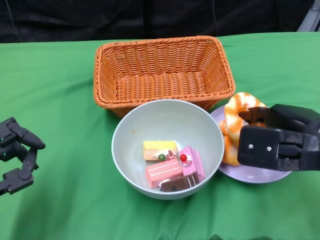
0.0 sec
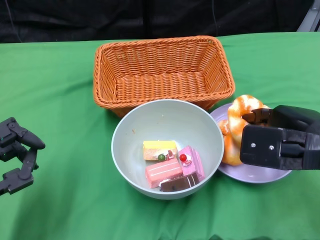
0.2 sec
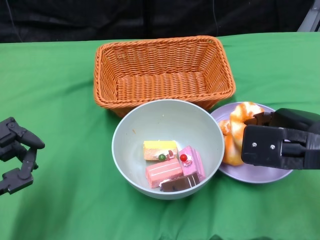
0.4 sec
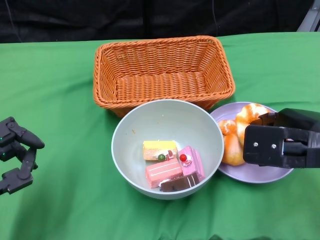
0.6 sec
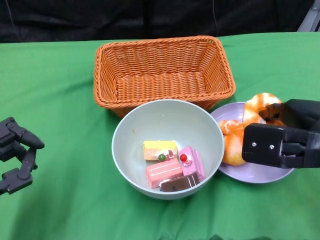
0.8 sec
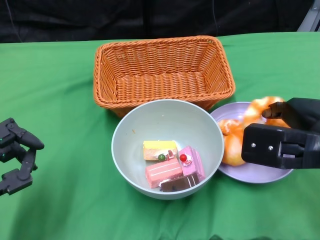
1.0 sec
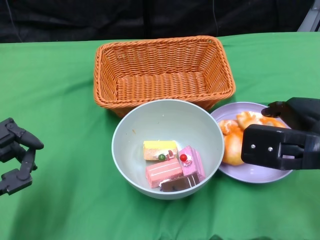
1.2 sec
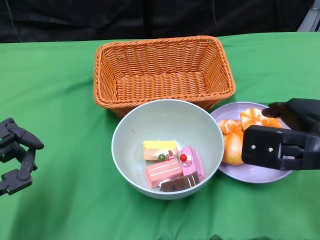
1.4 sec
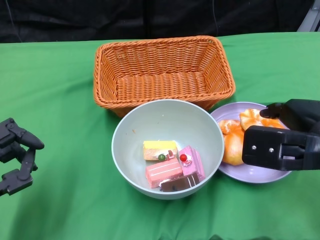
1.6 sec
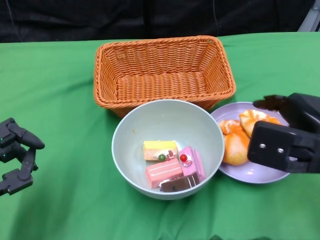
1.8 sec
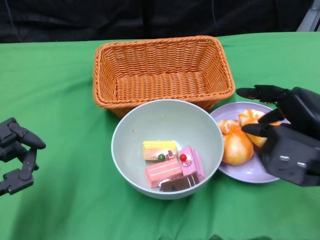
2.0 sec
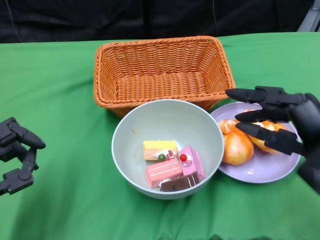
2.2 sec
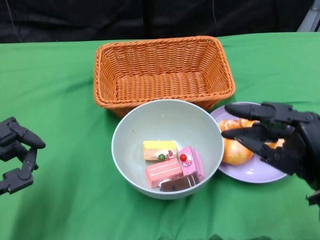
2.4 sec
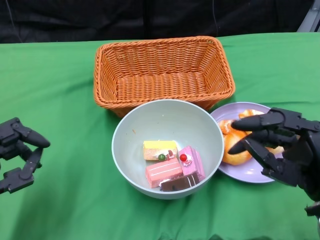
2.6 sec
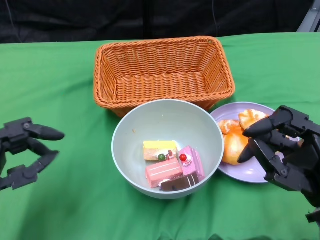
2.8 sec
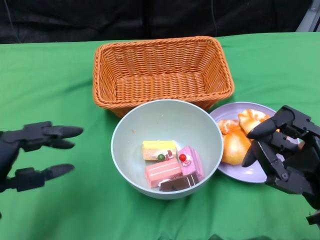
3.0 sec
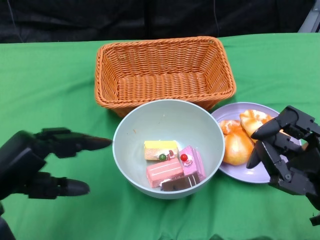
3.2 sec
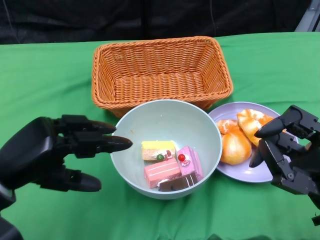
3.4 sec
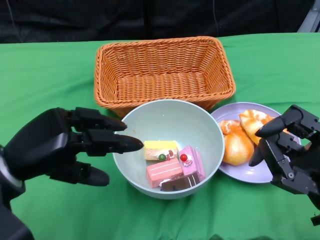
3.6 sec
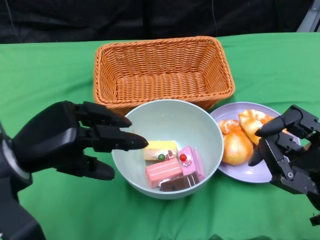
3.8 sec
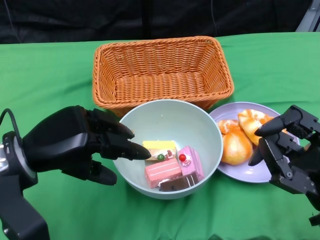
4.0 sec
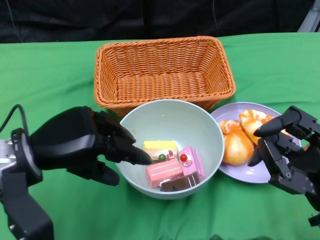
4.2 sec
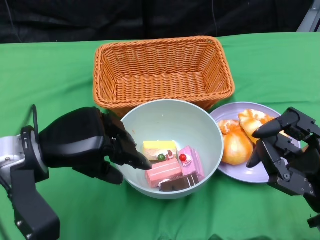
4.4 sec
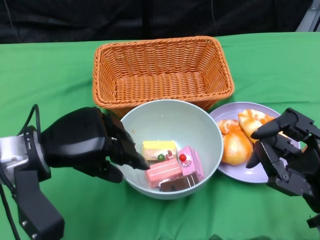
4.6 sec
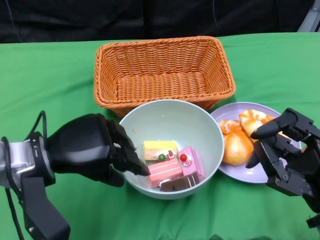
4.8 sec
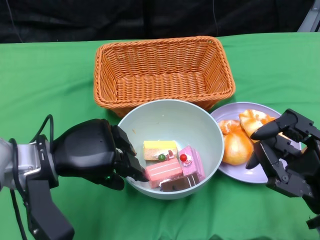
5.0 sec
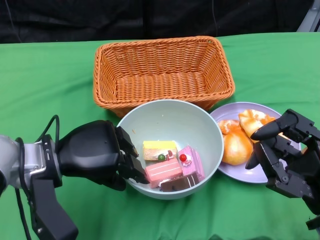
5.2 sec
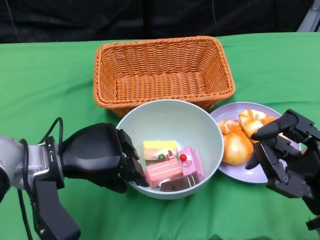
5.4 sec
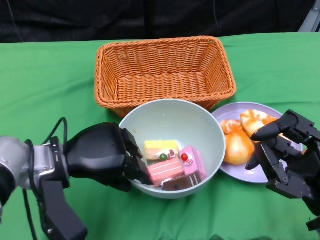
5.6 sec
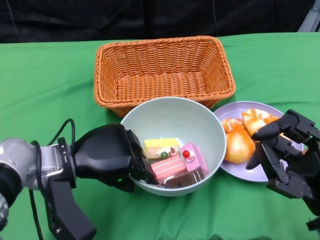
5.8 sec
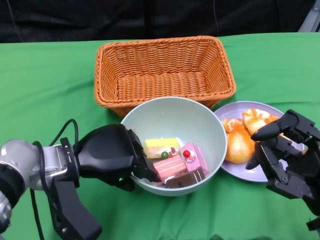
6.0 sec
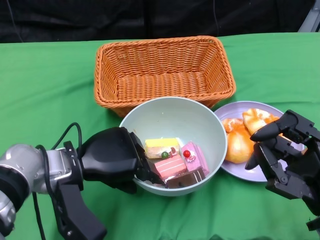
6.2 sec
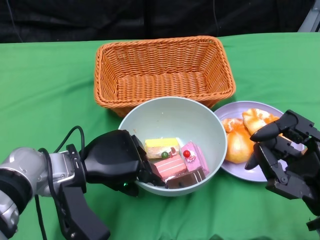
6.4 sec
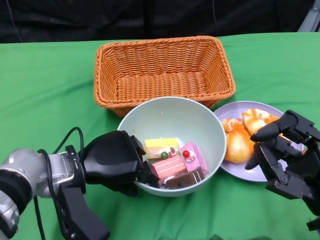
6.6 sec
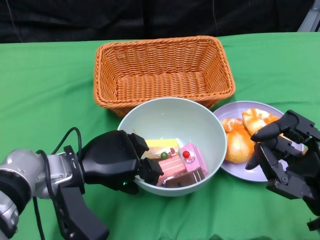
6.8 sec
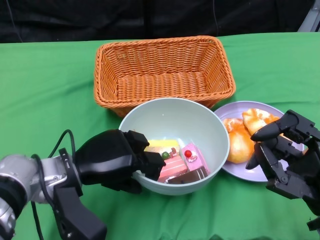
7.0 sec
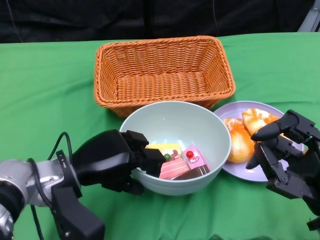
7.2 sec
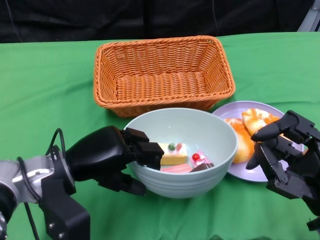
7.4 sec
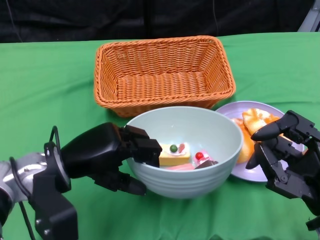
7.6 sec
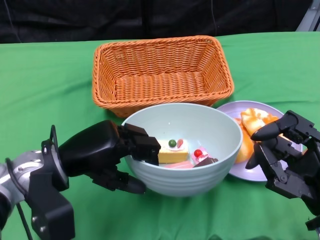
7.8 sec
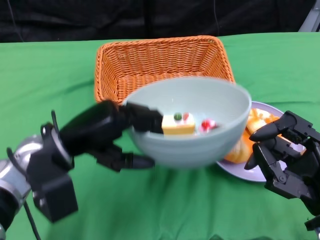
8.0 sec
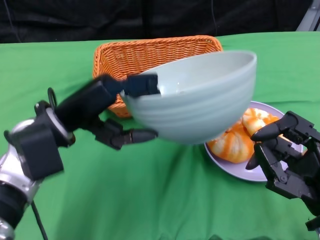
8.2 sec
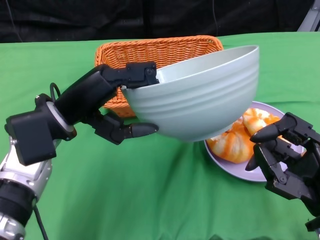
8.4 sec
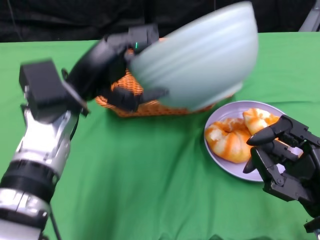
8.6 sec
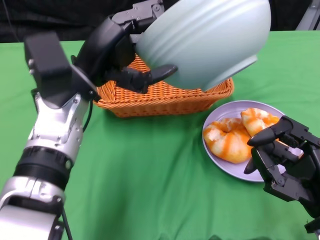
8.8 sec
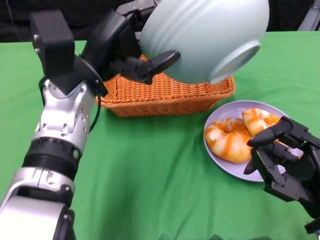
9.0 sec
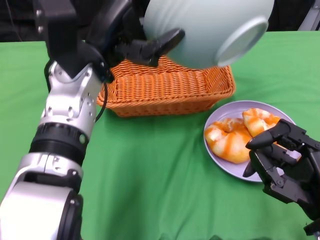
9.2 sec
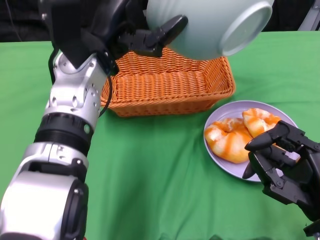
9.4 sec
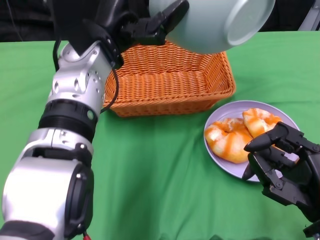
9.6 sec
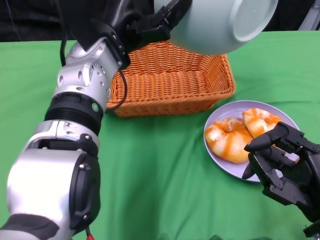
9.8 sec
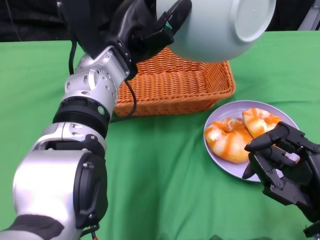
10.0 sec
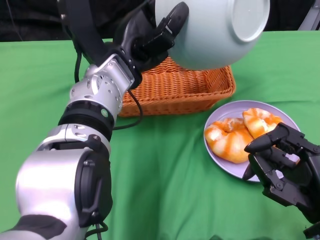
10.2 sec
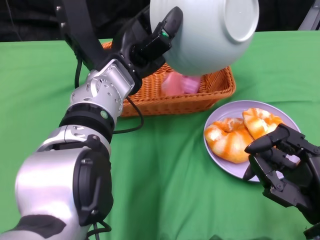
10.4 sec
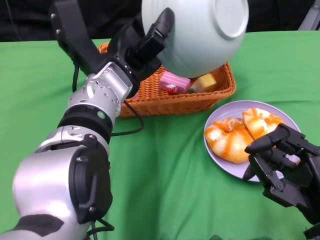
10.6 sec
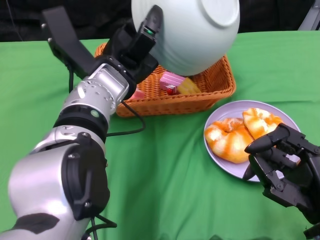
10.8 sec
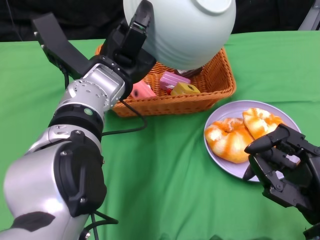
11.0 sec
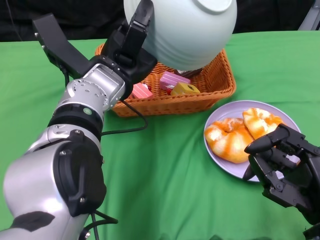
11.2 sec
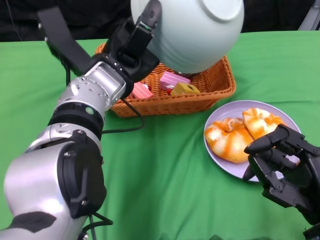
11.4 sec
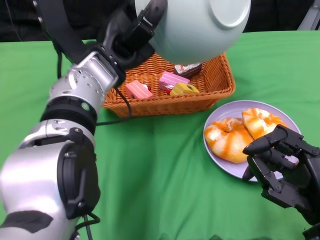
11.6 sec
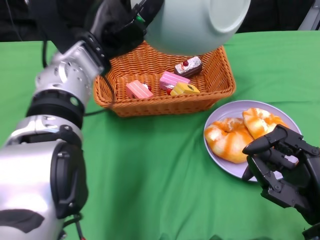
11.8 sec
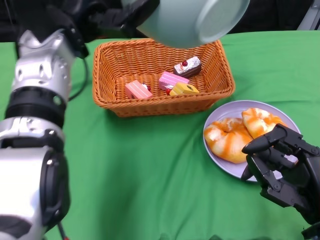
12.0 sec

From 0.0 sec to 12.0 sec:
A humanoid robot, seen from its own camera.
Step, from 2.0 sec to 7.2 sec: Grasp the bowl with the left gripper.
Step, from 7.4 sec to 11.8 sec: Pour the cake into the basket with the left gripper.
From 0.0 sec to 1.6 sec: The hands stay close to where they were, moving slightly.
From 1.6 sec to 3.0 sec: The right hand shifts about 10 cm backward.
From 3.0 sec to 4.4 sec: The left hand shifts some 10 cm to the right and forward.
From 4.4 sec to 6.0 sec: The left hand shifts by some 5 cm.
From 7.6 sec to 9.0 sec: The left hand shifts roughly 10 cm upward and forward.
From 9.0 sec to 10.4 sec: The left hand is displaced to the right by approximately 5 cm.
From 10.4 sec to 12.0 sec: The left hand travels to the left and upward by approximately 10 cm.

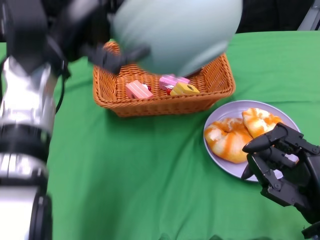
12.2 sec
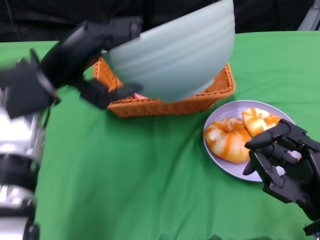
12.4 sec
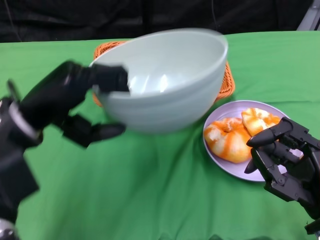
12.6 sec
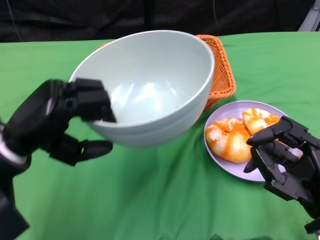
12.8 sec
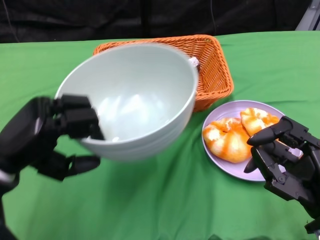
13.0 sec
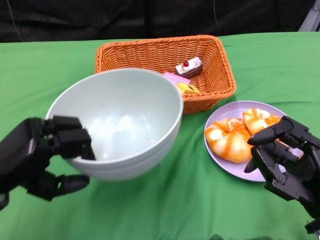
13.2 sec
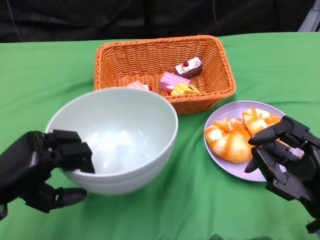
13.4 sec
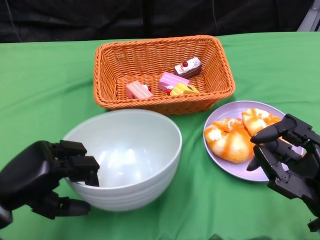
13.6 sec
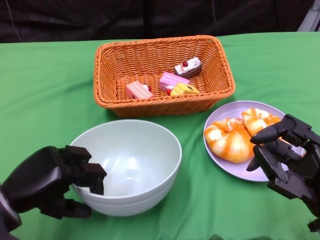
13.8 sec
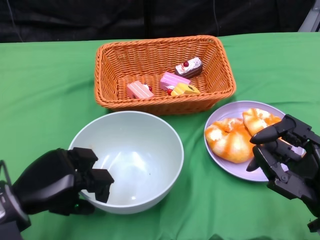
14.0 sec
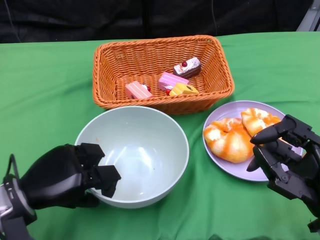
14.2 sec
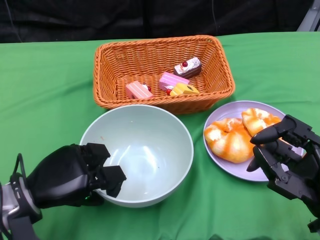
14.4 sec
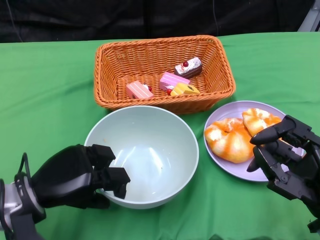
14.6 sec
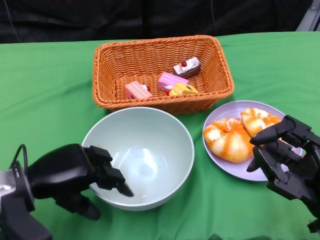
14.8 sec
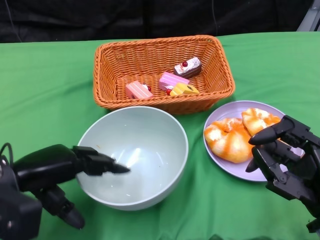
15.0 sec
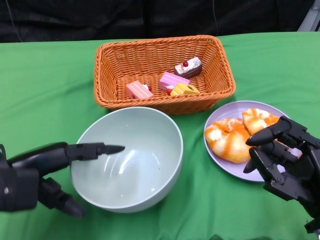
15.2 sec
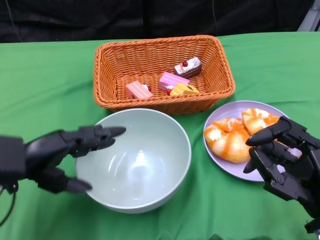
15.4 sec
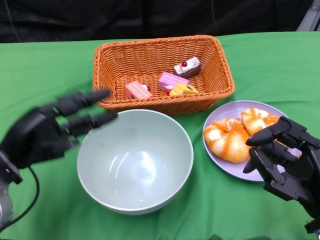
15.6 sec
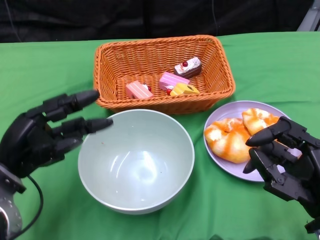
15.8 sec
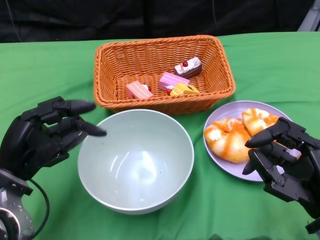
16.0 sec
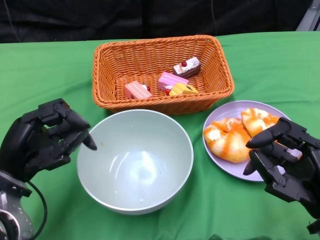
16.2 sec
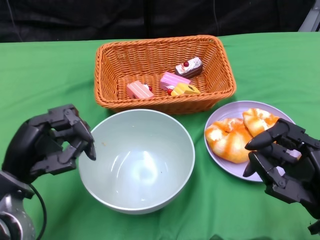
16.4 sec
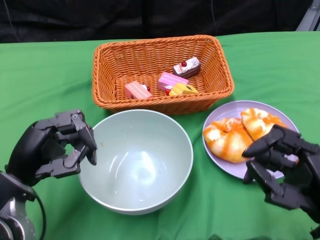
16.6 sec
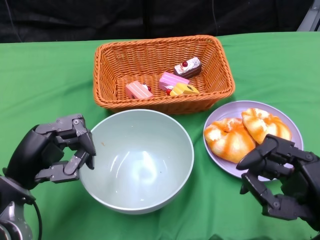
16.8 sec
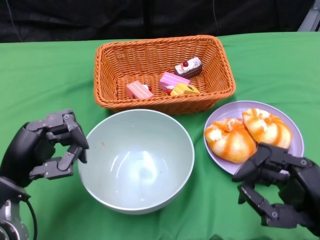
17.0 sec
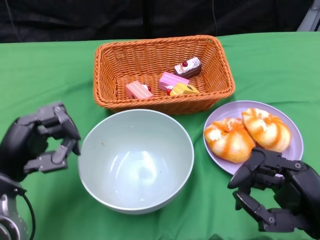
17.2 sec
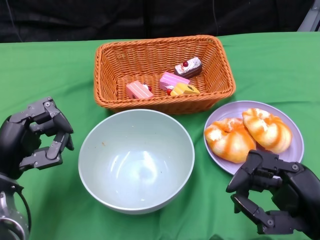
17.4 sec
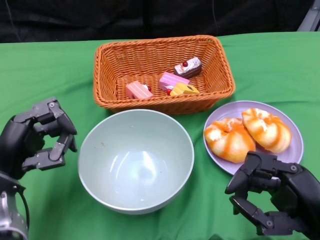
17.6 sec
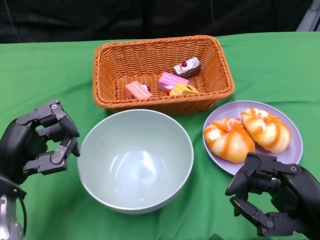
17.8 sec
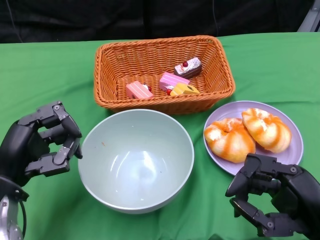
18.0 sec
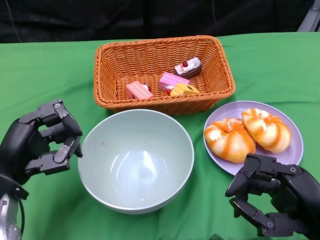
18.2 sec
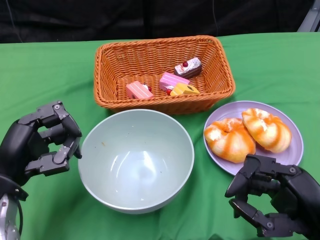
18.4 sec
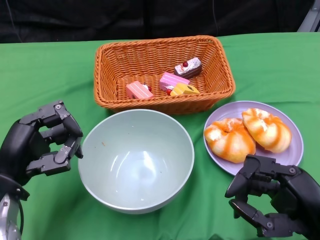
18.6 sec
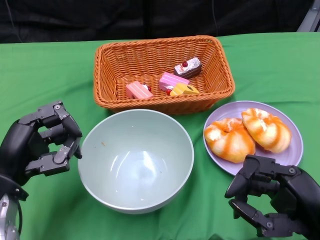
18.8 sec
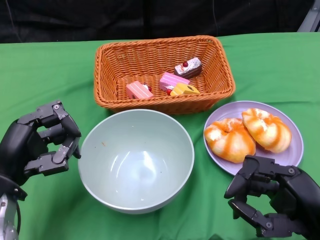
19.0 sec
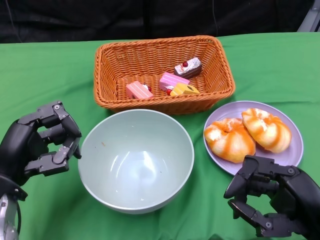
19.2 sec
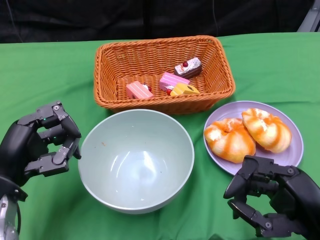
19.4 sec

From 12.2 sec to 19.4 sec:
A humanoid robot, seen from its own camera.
Step, from 12.2 sec to 15.0 sec: Place the bowl on the table with the left gripper.
From 12.2 sec to 13.6 sec: The left hand heads downward, backward and to the left, covering some 20 cm.
From 18.0 sec to 19.4 sec: Both hands stay put.

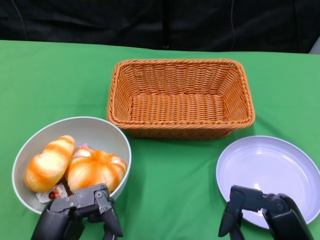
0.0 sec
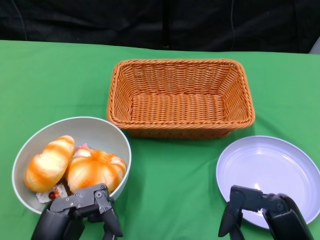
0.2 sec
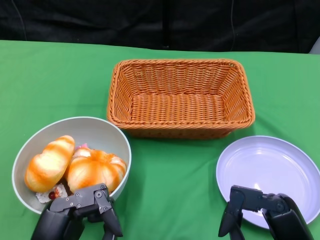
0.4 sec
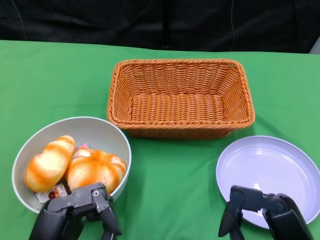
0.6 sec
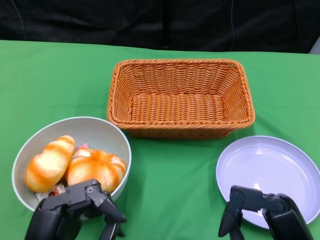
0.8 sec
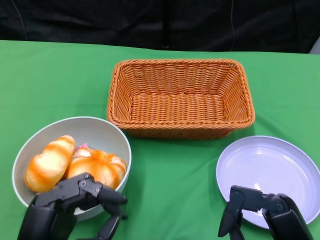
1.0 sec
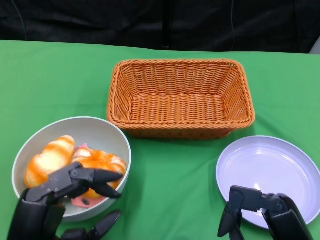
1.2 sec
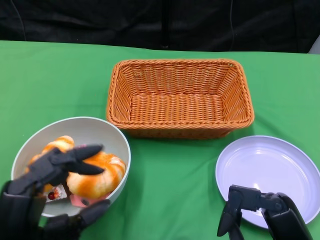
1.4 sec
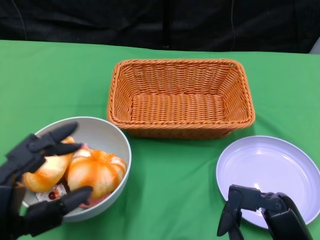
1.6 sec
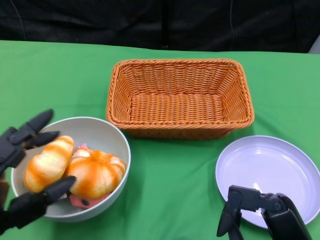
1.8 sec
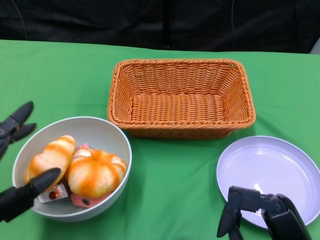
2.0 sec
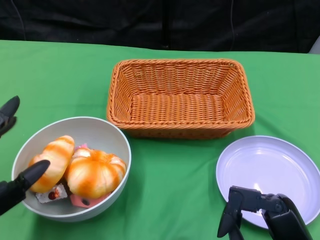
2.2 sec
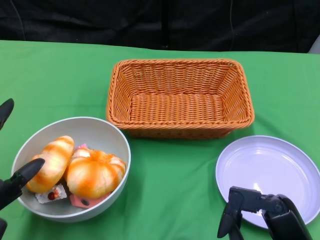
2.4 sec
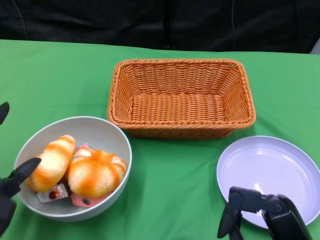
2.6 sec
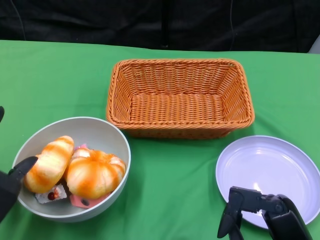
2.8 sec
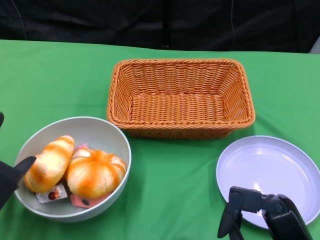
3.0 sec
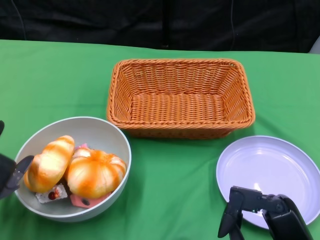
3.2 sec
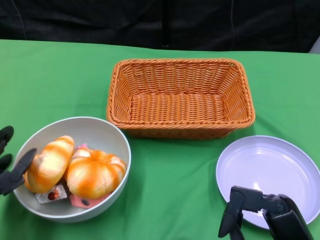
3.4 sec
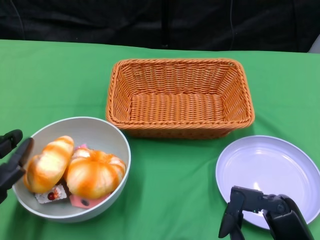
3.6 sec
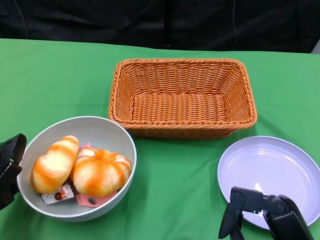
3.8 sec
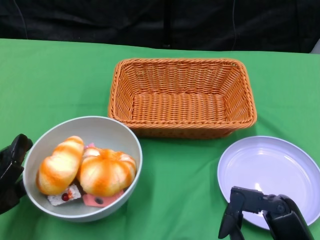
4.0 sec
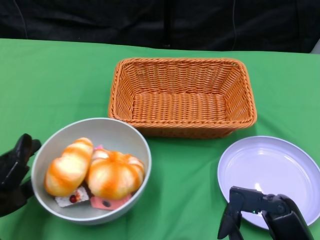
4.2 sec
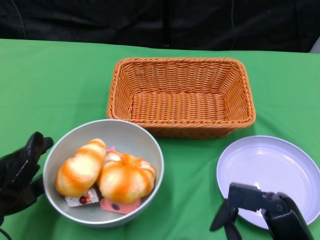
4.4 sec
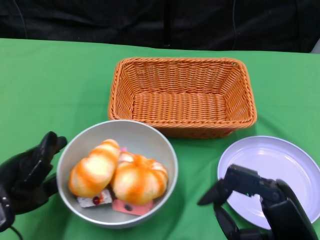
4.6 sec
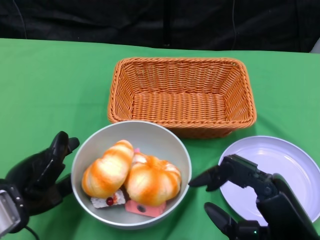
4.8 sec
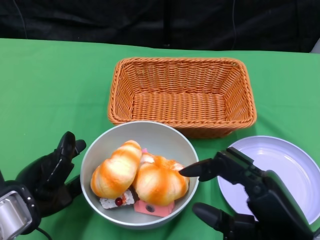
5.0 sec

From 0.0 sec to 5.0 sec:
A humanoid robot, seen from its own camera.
From 1.6 sec to 3.4 sec: The left hand moves forward and to the left, about 10 cm.
From 3.4 sec to 5.0 sec: The left hand heads to the right, covering some 5 cm.
